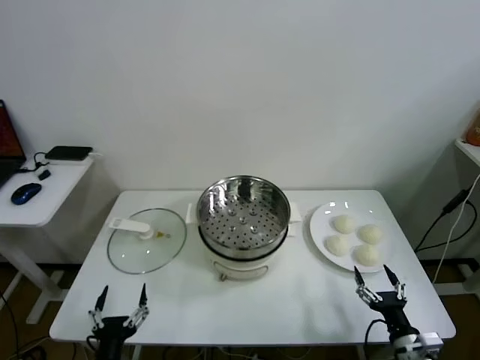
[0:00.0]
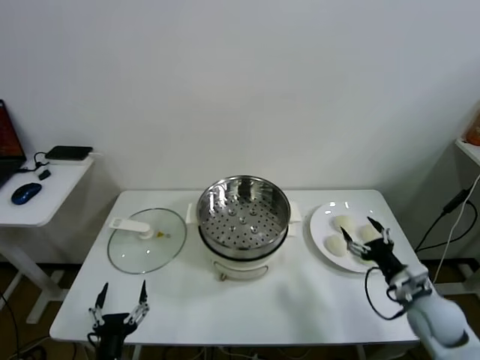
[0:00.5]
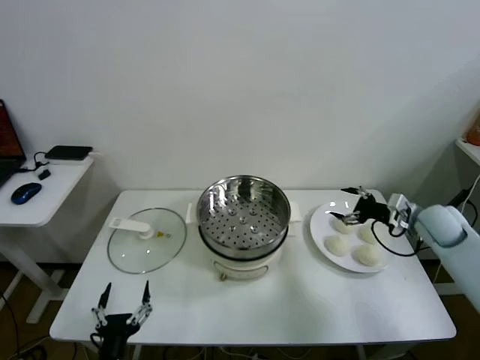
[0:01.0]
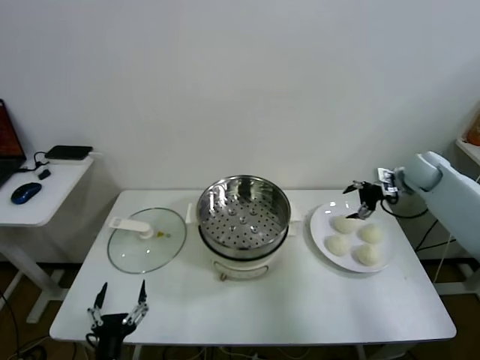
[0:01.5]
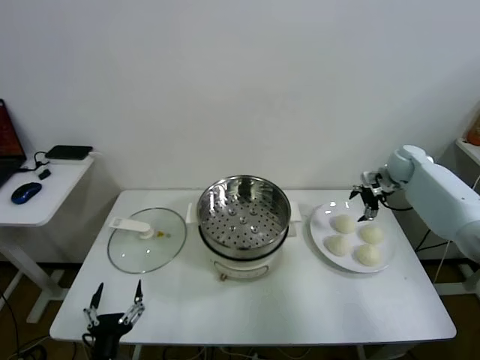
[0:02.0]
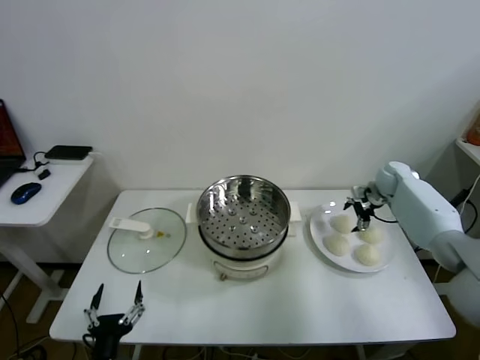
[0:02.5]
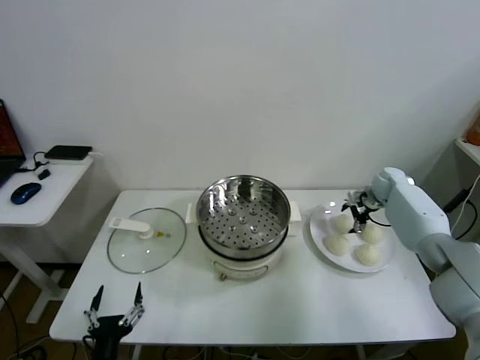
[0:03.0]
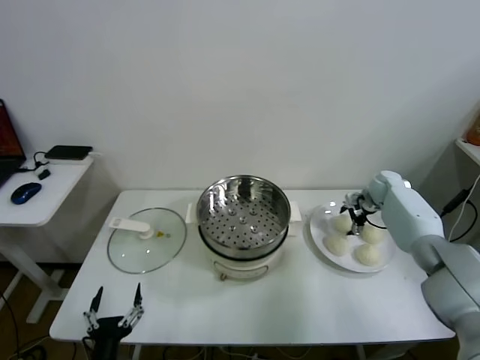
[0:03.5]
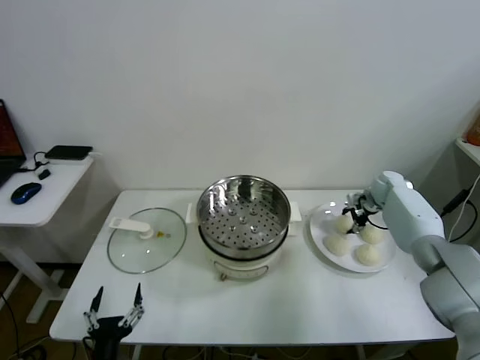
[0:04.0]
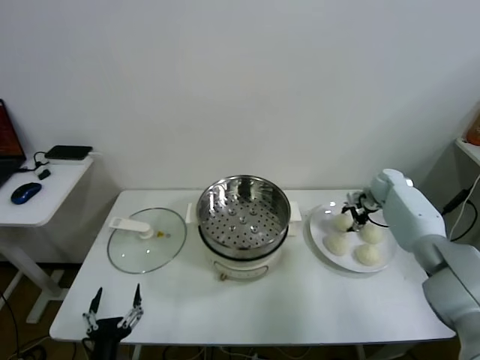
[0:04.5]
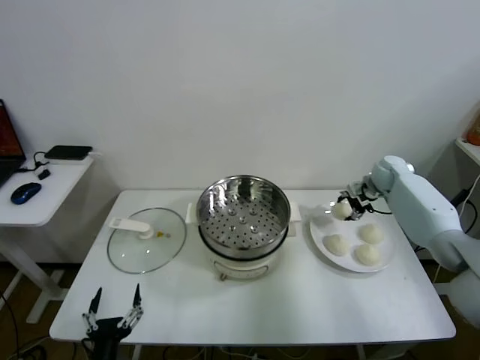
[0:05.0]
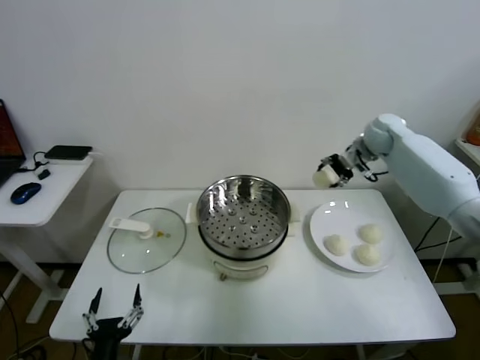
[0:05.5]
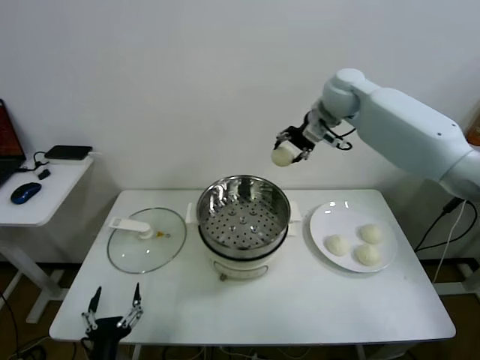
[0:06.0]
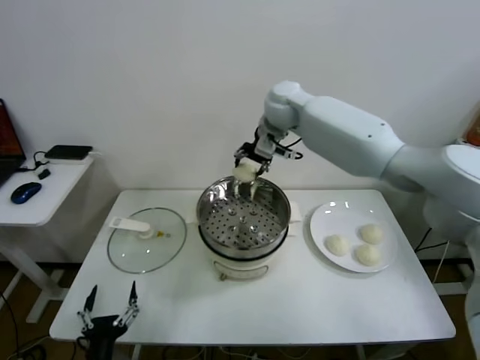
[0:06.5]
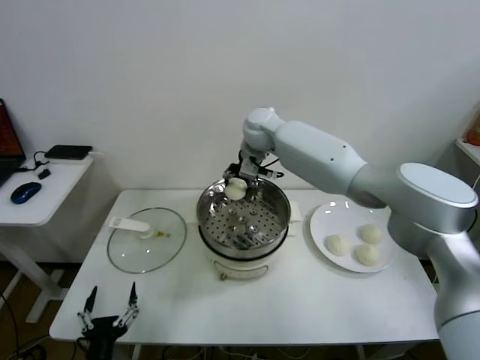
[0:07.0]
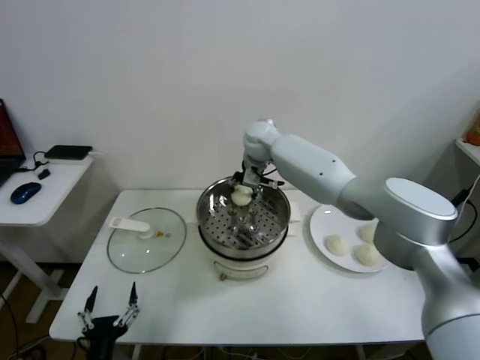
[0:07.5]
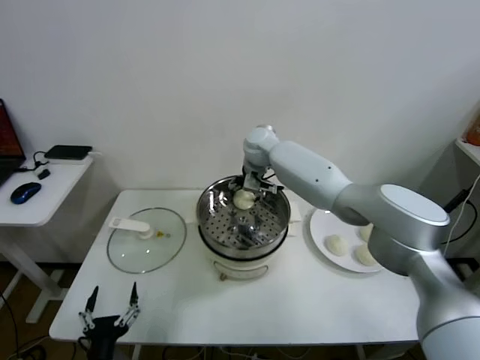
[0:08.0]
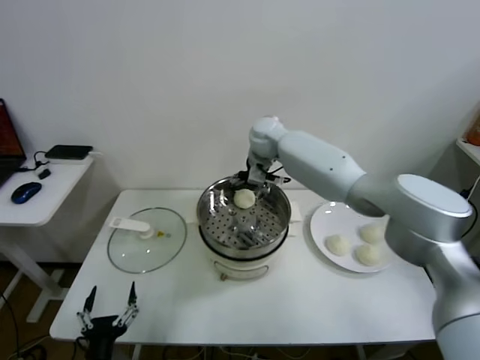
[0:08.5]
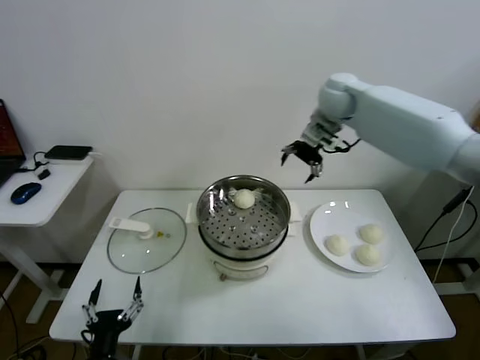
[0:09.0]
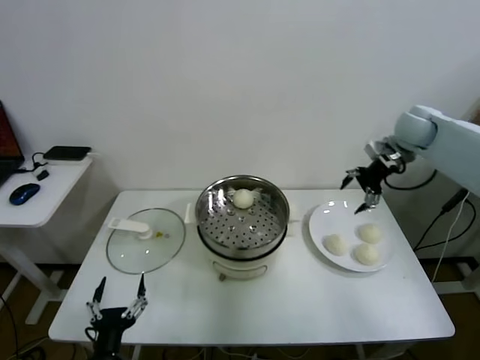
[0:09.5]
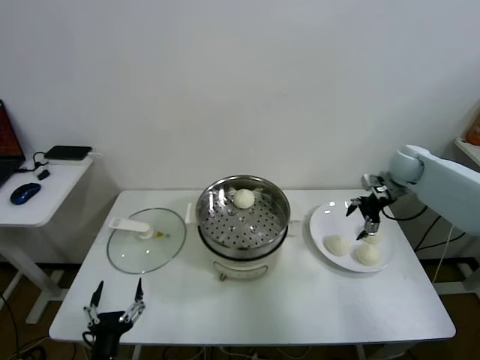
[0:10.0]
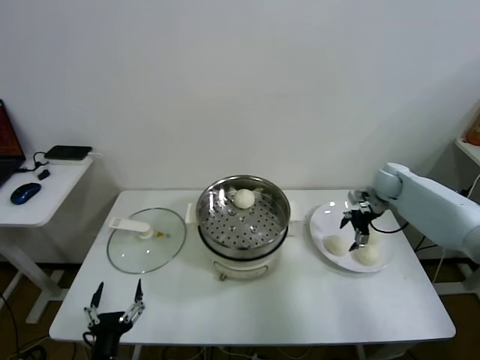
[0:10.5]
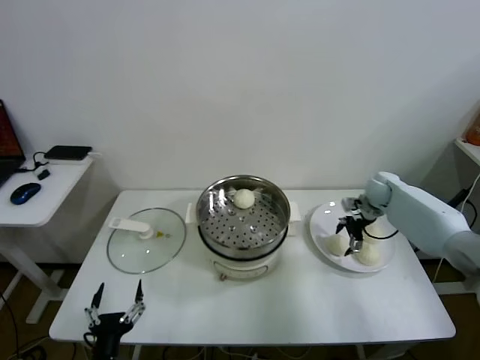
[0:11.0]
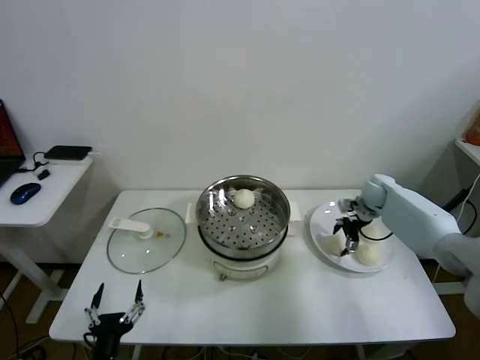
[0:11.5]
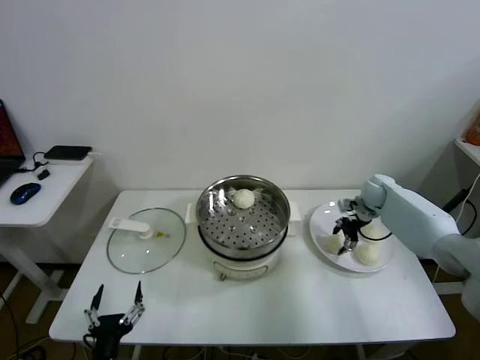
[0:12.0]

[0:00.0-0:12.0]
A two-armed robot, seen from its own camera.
Task of the whole recording: take steamed baozi put them in steamer.
Step, 0:00.0 to 0:04.0: Grasp the baozi in the plate with right gripper.
Step, 0:04.5 to 0:08.0: Place the baozi on the steamer with right gripper.
0:02.0 to 0:04.0: The right gripper heads downward, covering some 10 cm, and closes its fingers.
0:04.0 to 0:06.0: The right gripper heads upward and to the left, covering some 40 cm.
0:06.0 to 0:08.0: The right gripper goes some 20 cm downward and to the left, and opens up.
0:08.0 to 0:10.0: The right gripper goes about 35 cm to the right.
0:10.0 to 0:12.0: The right gripper goes some 10 cm downward, and closes.

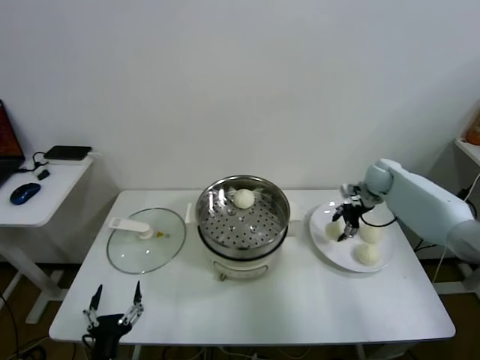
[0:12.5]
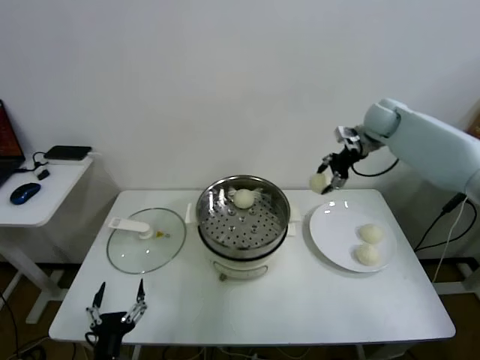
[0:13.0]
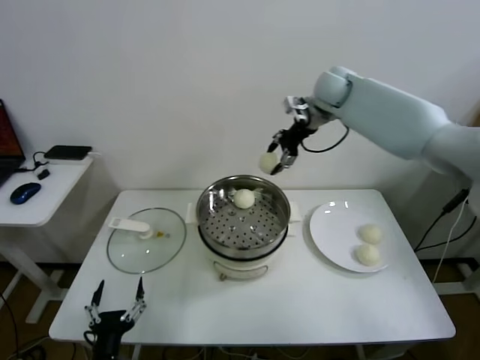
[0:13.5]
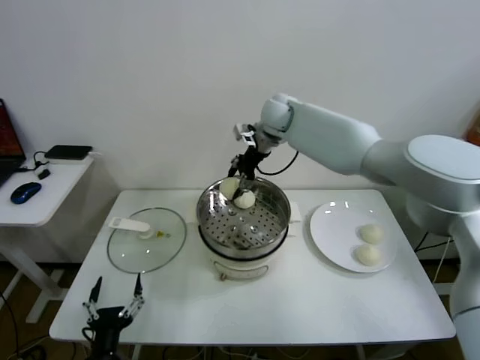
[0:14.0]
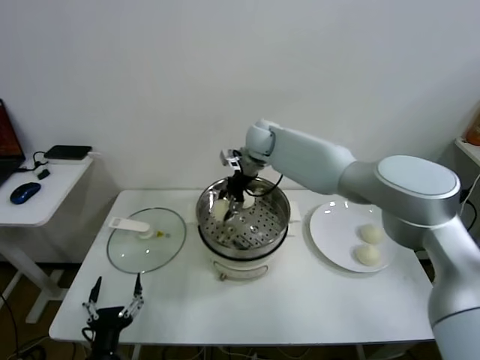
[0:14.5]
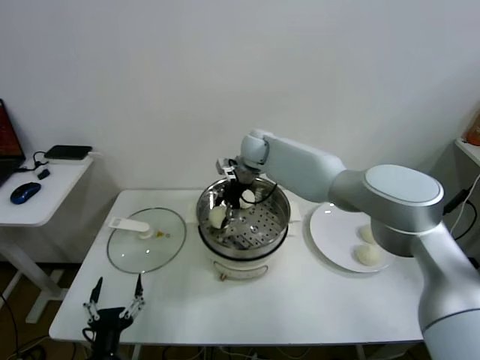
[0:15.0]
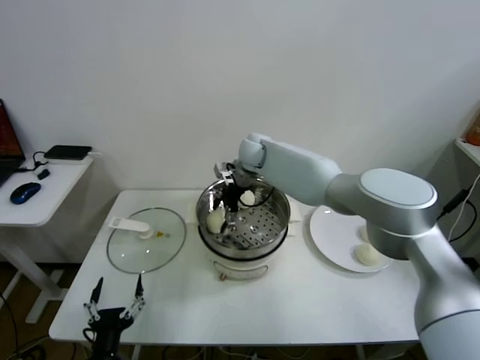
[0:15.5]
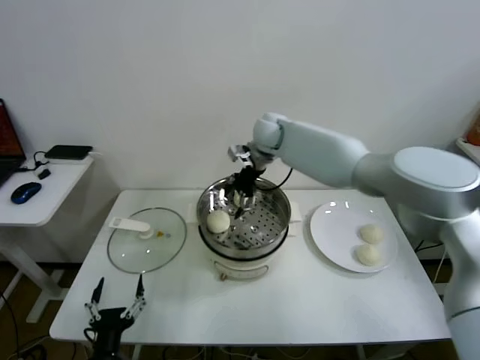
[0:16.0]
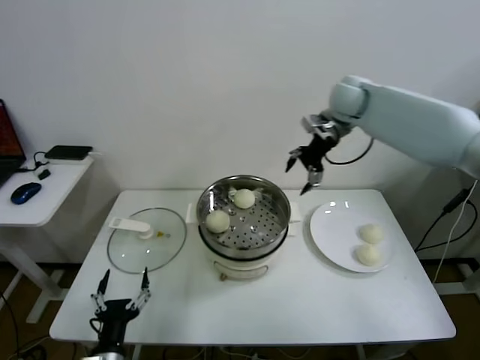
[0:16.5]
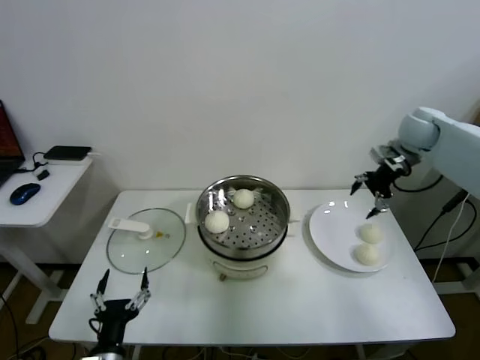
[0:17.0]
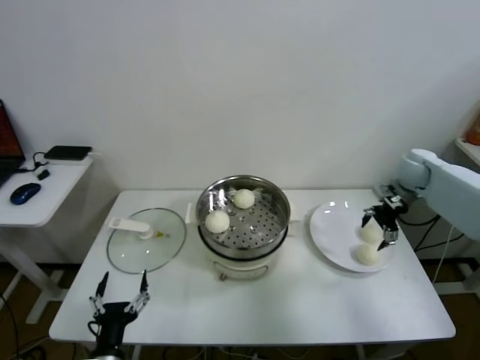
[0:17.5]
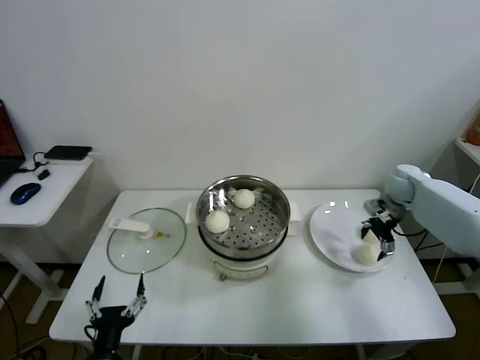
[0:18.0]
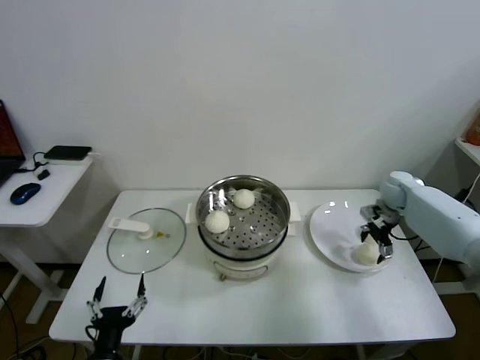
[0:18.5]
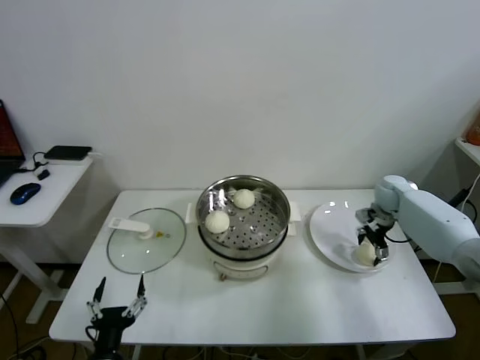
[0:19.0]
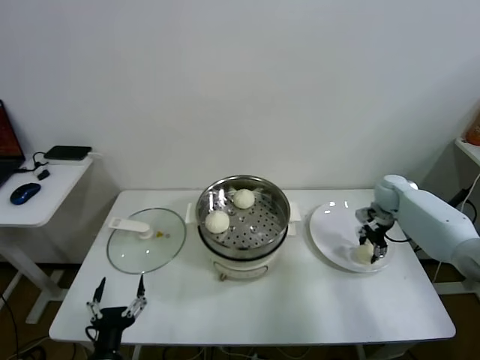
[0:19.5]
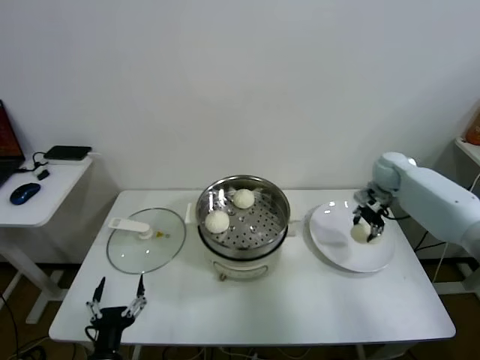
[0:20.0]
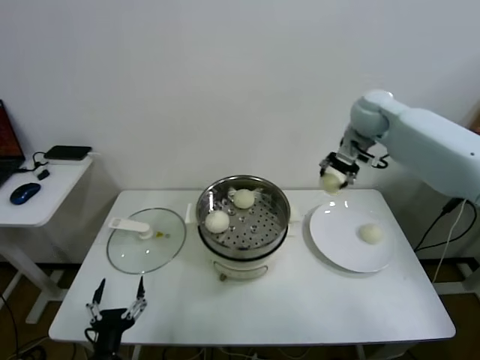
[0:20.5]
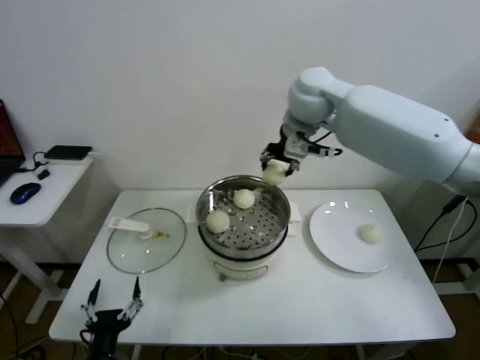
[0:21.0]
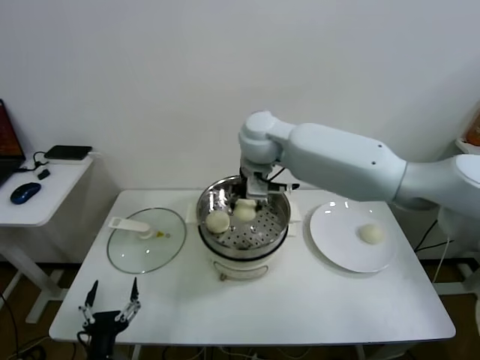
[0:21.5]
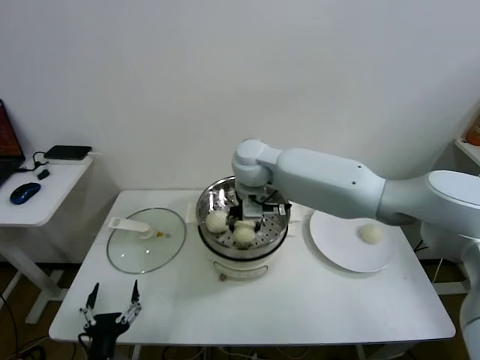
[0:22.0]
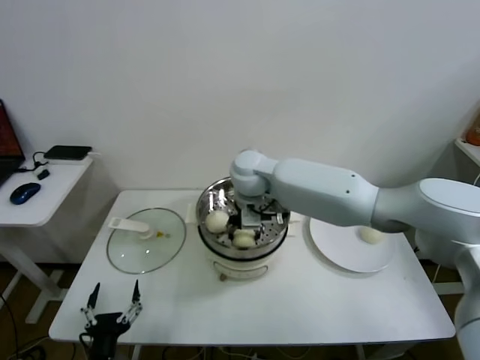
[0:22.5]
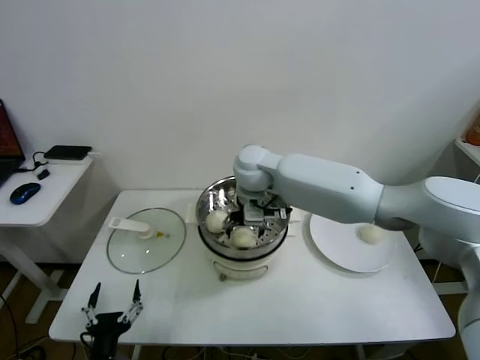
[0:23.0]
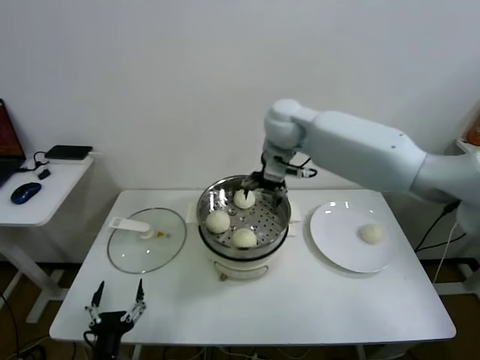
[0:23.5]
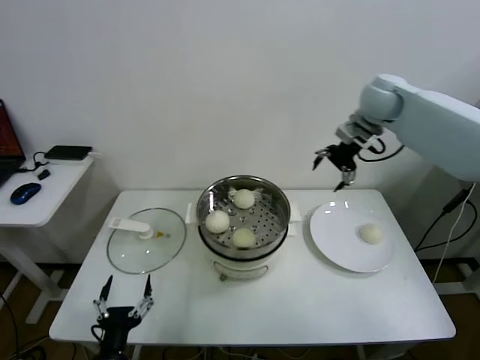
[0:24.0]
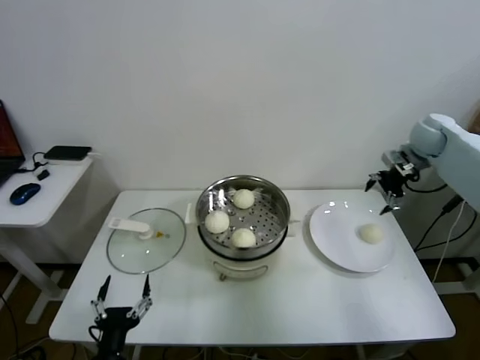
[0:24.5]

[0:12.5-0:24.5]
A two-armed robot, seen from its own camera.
Task of the whole recording: take steamed baozi put them in steamer.
Step, 0:12.5 to 0:15.5: Place the baozi on the steamer with right gripper.
Step, 0:16.0 to 0:19.5: Grasp the baozi in the plate with right gripper.
Step, 0:20.0 to 0:22.5: Place the baozi on the steamer with right gripper.
0:12.5 to 0:14.5: The right gripper shifts roughly 35 cm to the left.
0:14.5 to 0:16.5: The right gripper heads to the right and upward, covering about 25 cm, and opens its fingers.
0:16.5 to 0:18.5: The right gripper heads downward and to the right, covering approximately 30 cm.
0:18.5 to 0:20.5: The right gripper travels upward and to the left by roughly 25 cm, and closes.
0:20.5 to 0:22.5: The right gripper heads to the left and downward, covering approximately 30 cm.
0:22.5 to 0:24.5: The right gripper shifts approximately 40 cm to the right, and opens.

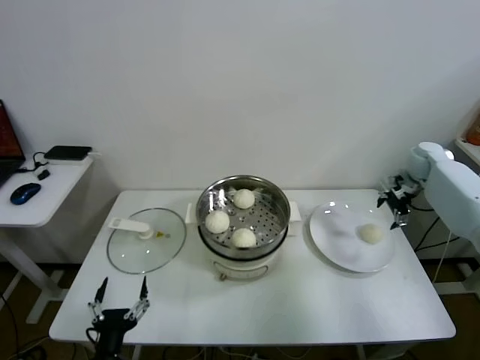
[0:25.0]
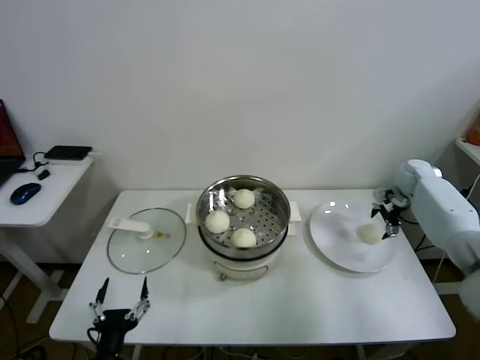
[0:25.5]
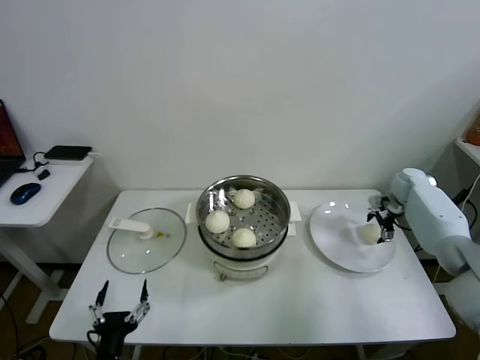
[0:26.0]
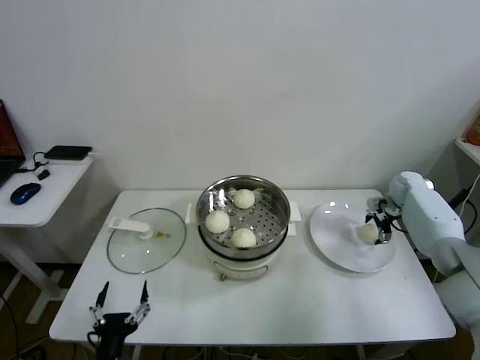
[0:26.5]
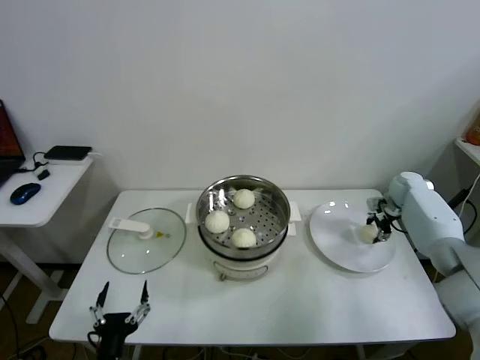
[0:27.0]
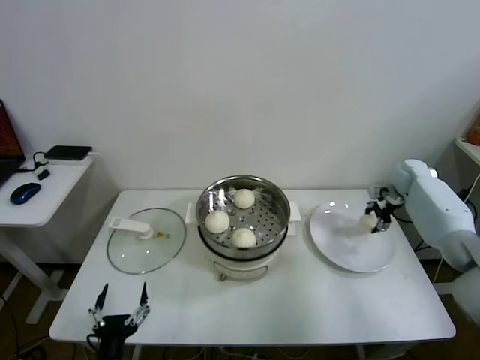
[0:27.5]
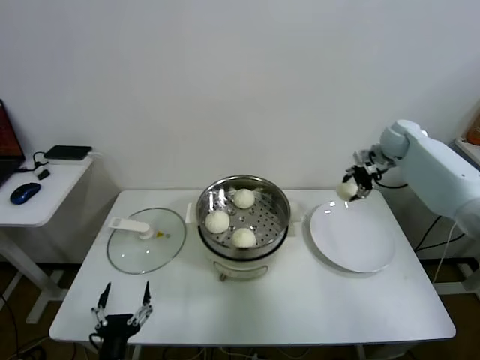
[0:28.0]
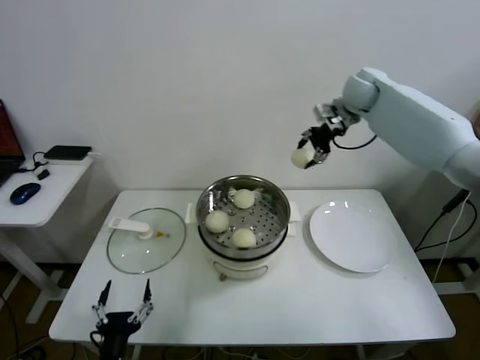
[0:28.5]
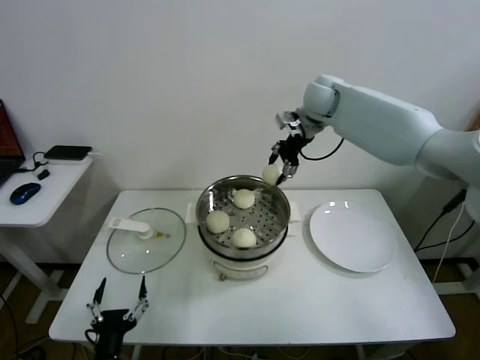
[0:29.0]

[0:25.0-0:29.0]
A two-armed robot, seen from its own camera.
Task of the whole recording: take steamed baozi put them in steamer.
0:25.0 to 0:27.0: The right gripper is displaced downward by approximately 10 cm, and closes its fingers.
0:27.0 to 0:29.0: The right gripper shifts about 40 cm to the left and upward.
